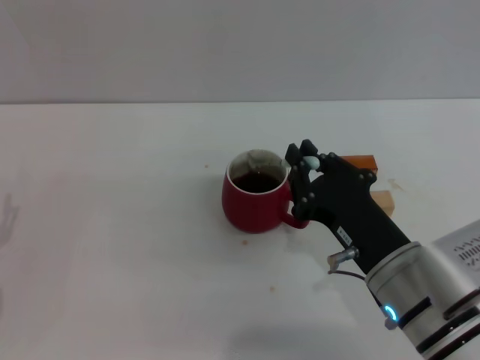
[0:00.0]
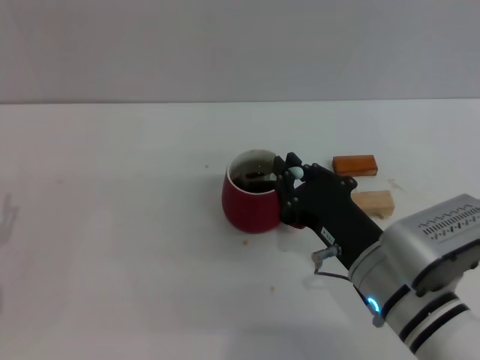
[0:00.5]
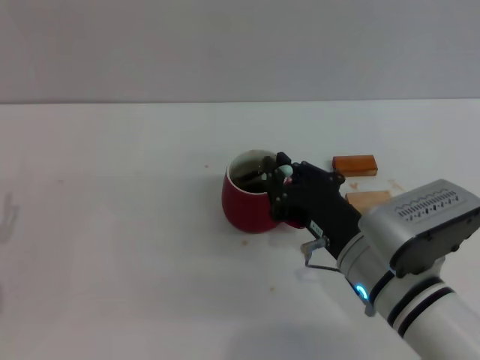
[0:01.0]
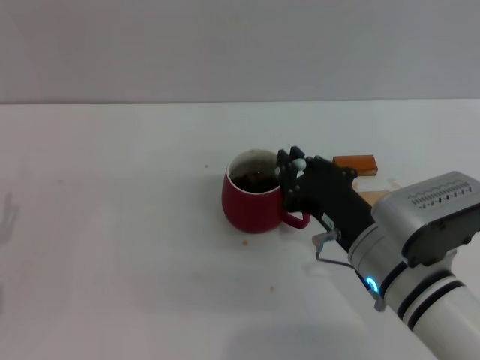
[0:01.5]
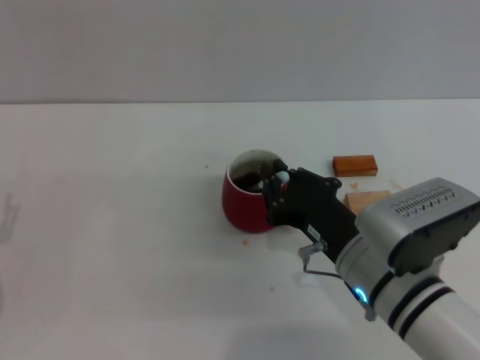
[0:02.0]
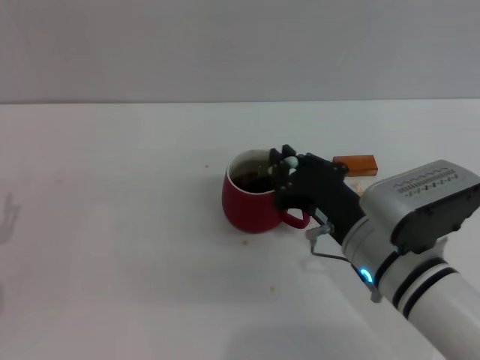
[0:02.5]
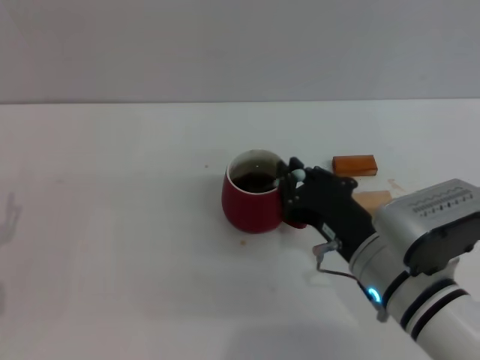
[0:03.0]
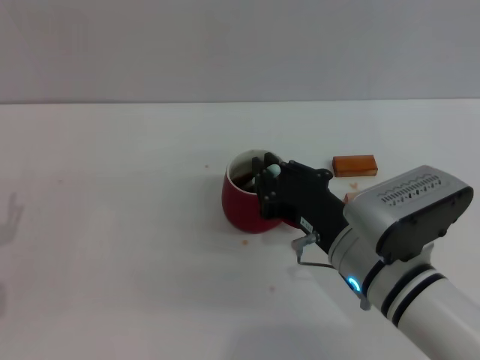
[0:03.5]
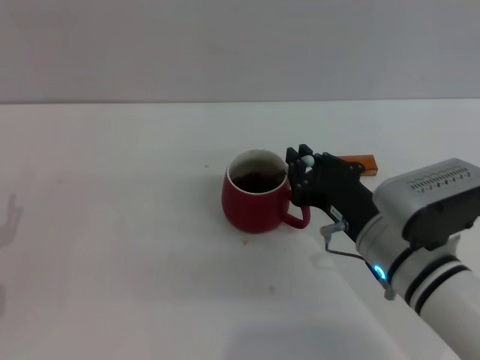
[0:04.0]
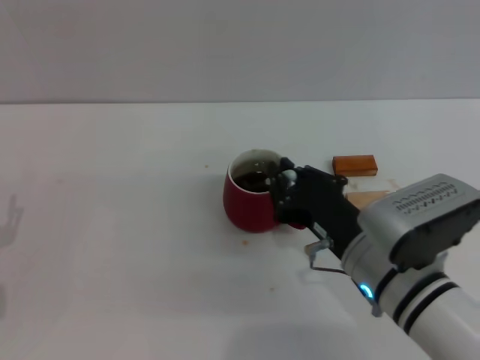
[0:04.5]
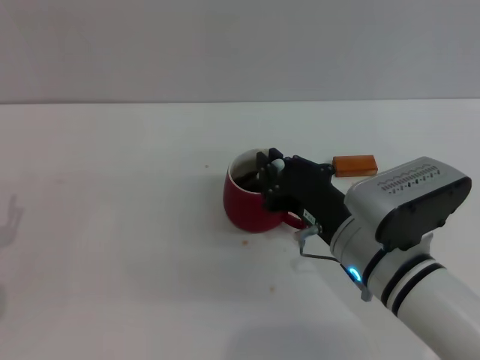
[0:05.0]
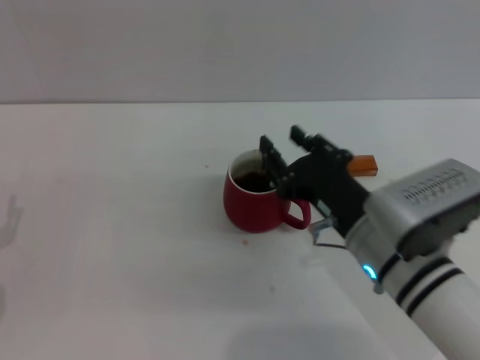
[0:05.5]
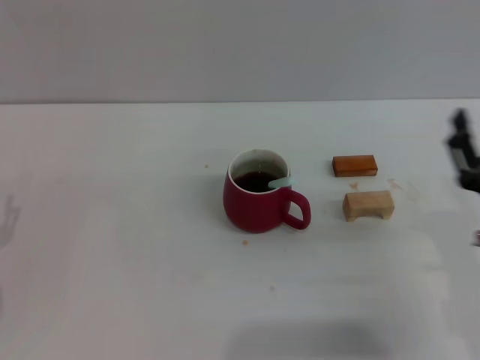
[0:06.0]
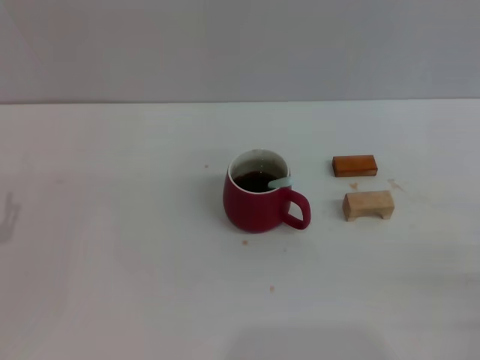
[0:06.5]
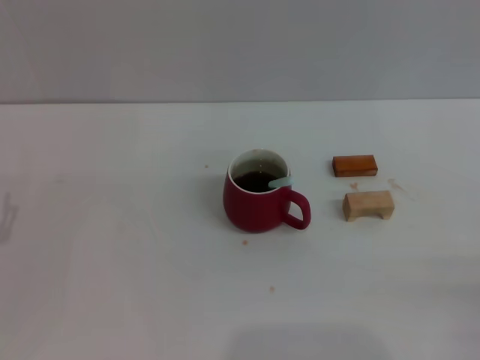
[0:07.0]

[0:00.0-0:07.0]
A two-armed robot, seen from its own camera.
Task of the whole recording: Move the red cup to the center, lift the blue spoon, stir it three times in the cup, and put the spoon into the cup.
Step, 0:00.0 to 0:05.5: Stir the coffee in the cup with the right gripper.
0:00.0 to 0:05.0: There are only small adjustments of the grippers.
0:05.0 to 0:07.0: The right gripper is displaced to the right and backward by roughly 25 cm, and opens.
